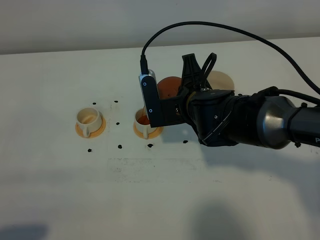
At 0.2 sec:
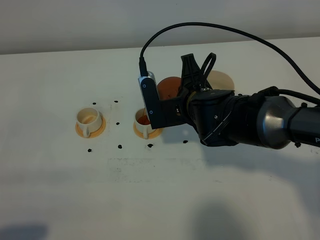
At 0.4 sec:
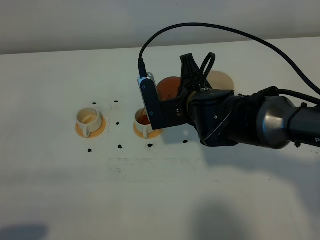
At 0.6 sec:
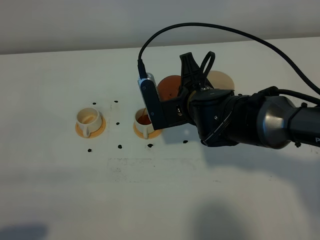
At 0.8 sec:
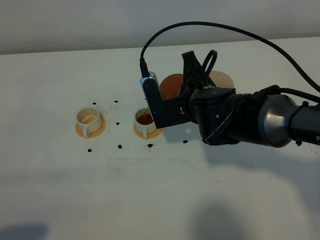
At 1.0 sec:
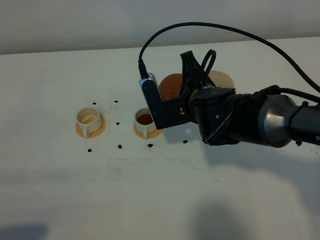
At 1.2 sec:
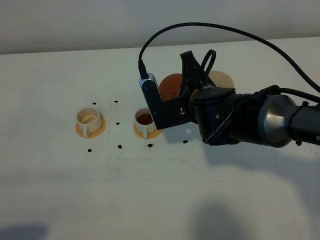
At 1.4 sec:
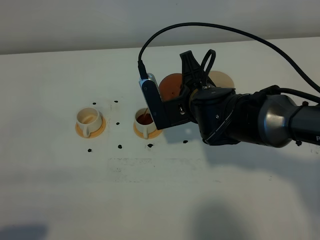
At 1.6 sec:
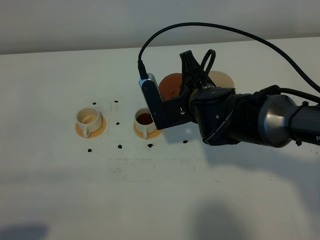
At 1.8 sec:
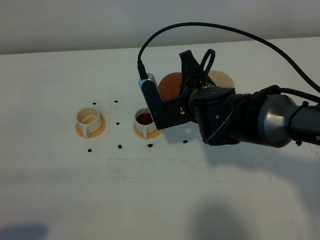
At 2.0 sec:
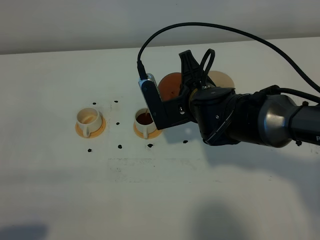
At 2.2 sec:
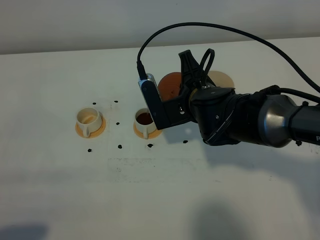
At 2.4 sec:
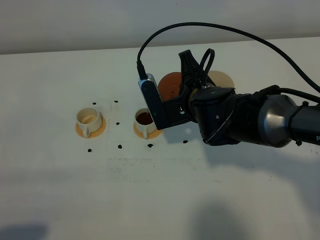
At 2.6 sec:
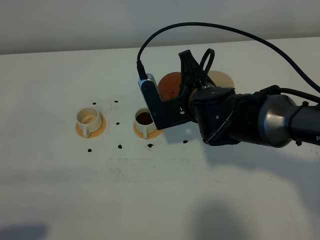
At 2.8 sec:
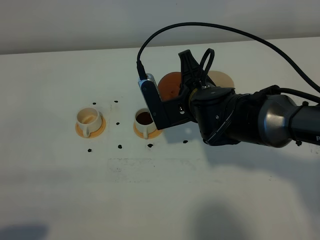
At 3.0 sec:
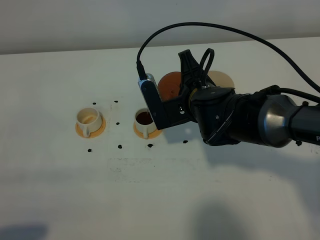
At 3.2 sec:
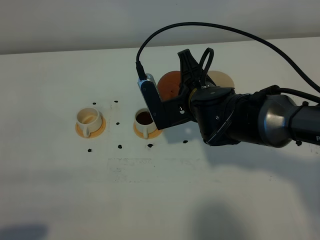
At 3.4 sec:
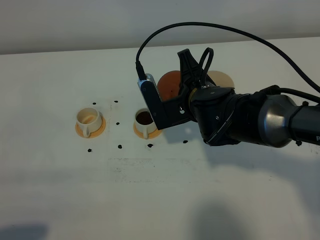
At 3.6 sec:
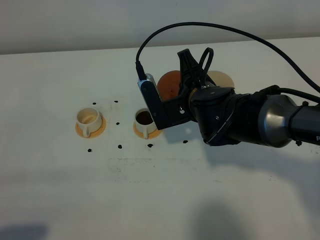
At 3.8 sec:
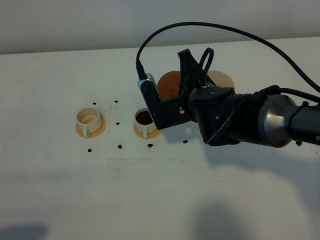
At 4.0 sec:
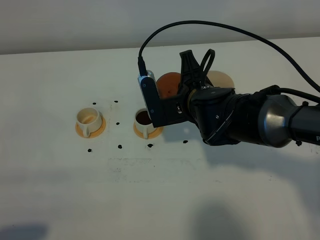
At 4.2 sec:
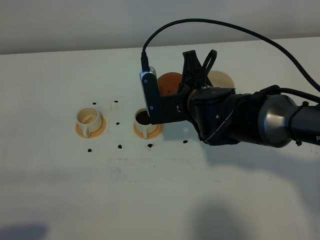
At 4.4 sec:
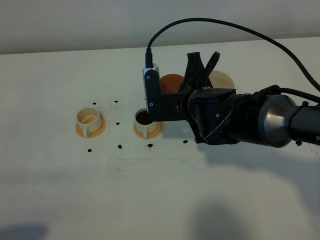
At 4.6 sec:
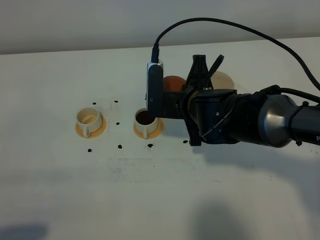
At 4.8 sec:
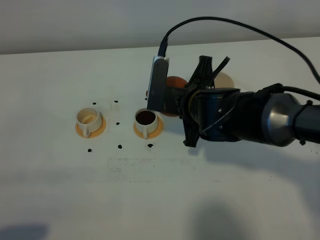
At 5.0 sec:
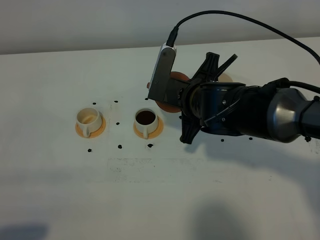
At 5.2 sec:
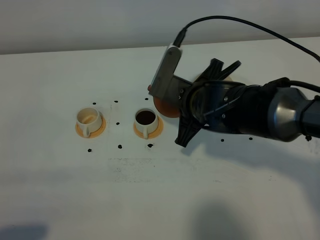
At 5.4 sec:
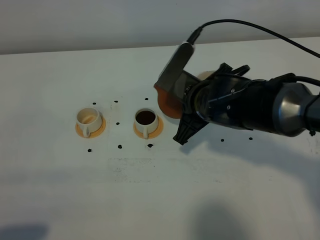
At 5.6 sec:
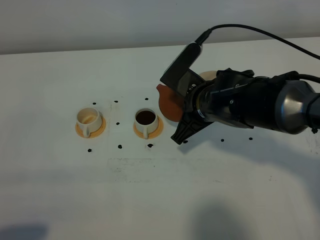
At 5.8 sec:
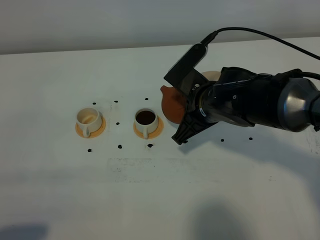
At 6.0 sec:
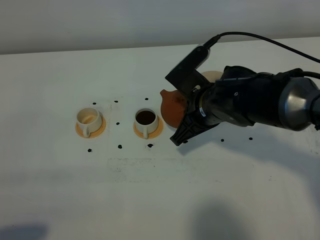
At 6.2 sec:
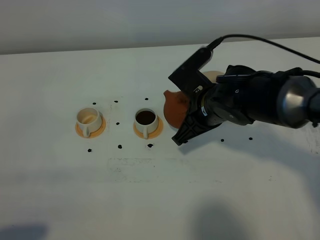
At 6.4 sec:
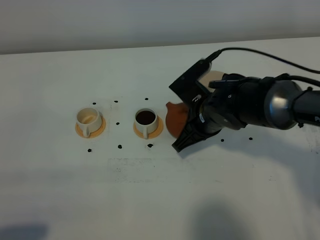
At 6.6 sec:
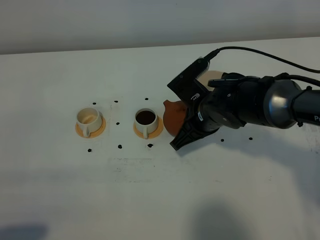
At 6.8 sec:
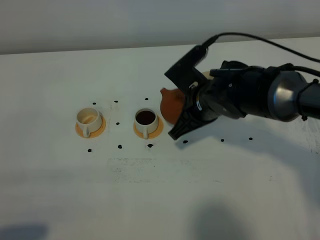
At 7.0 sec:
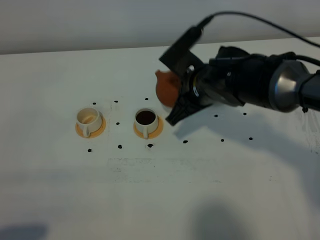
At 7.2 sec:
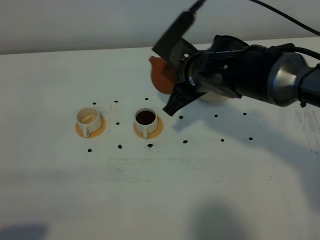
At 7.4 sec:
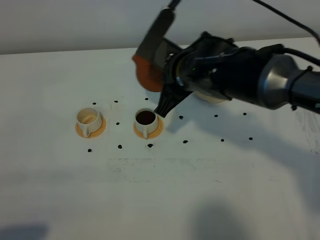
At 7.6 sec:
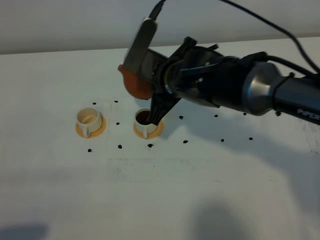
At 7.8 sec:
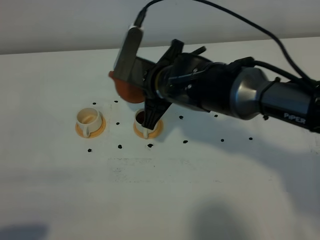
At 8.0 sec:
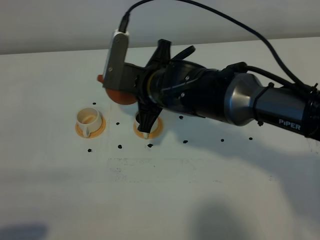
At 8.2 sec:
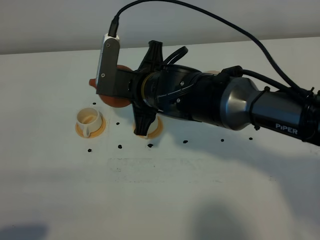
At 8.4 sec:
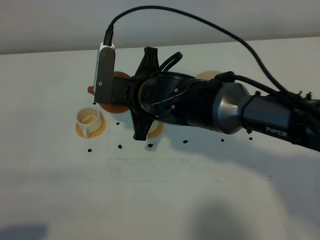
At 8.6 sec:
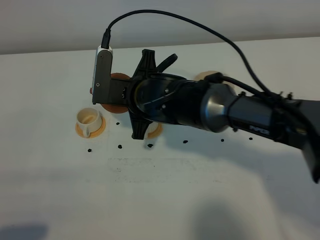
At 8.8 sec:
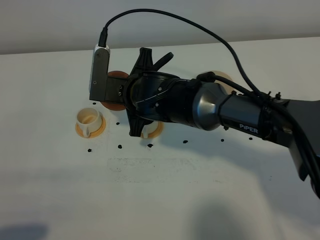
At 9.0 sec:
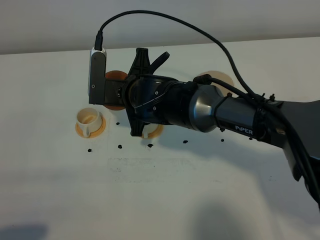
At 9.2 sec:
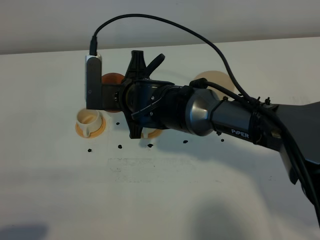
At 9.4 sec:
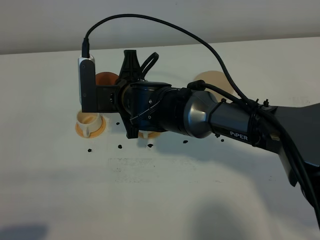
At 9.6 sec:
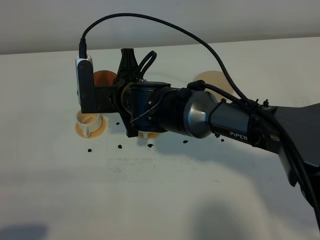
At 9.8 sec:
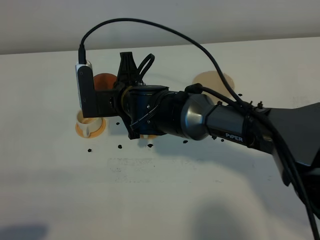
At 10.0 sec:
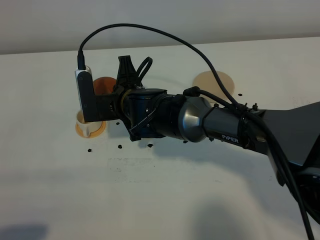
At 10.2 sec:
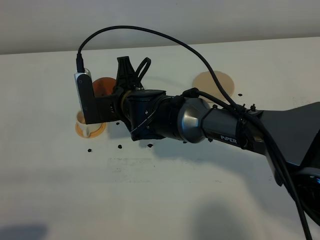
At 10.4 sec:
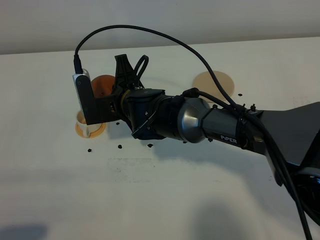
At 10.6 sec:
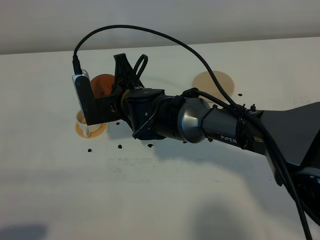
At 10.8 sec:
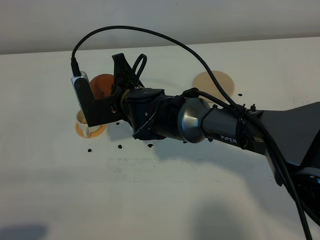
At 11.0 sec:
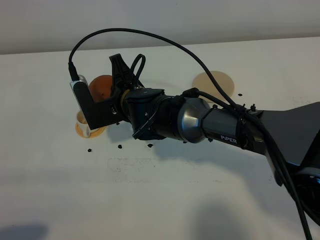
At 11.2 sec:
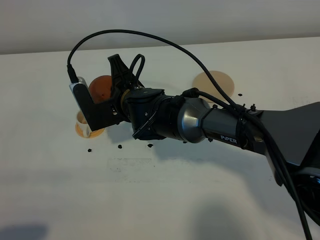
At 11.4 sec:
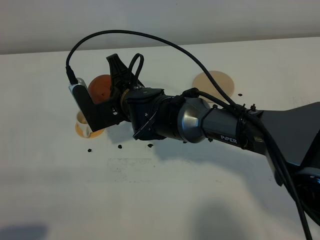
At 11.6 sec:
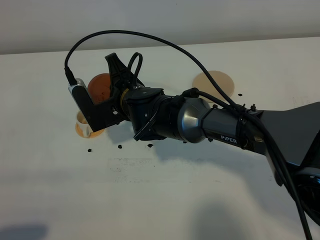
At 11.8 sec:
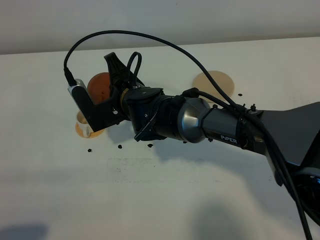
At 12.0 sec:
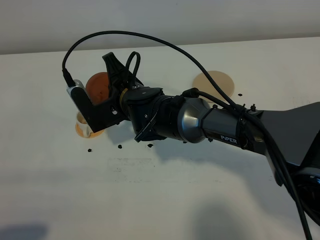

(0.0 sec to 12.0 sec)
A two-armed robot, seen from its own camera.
Task of the whole recording: grasp the brown teapot and pour the tea into the two white teacups one by one, put the brown teapot back in its original place.
0.0 sec - 1.6 sec: The grippers make only small movements.
1.6 sec - 3.0 sec: The two grippers keep their place.
3.0 sec - 4.4 sec: The grippers move only a little.
6.0 sec - 7.6 sec: The right gripper moves to the left, about 5 cm.
7.6 sec - 9.0 sec: The right gripper is displaced to the left by some 5 cm.
9.0 sec - 10.4 sec: The grippers move only a little.
10.4 sec - 12.0 sec: The grippers move only a little.

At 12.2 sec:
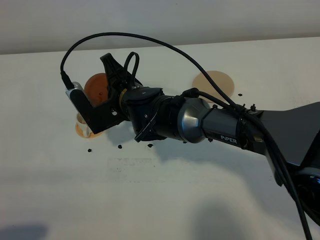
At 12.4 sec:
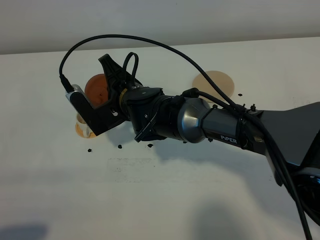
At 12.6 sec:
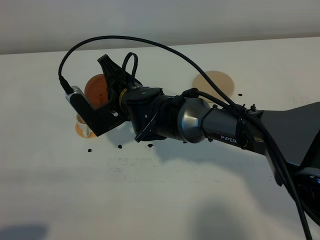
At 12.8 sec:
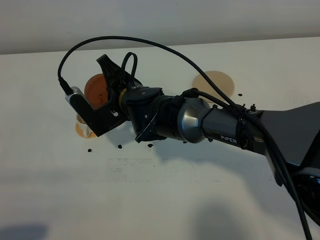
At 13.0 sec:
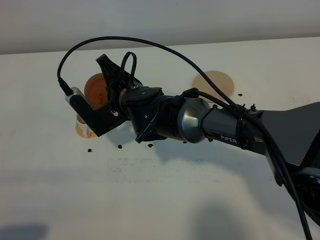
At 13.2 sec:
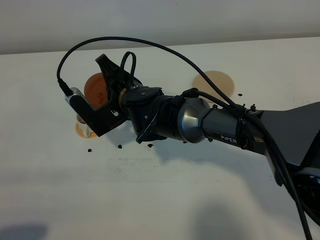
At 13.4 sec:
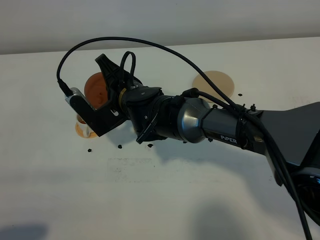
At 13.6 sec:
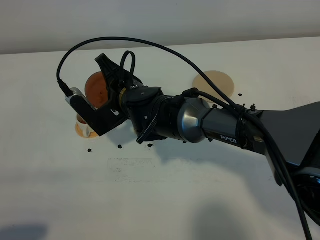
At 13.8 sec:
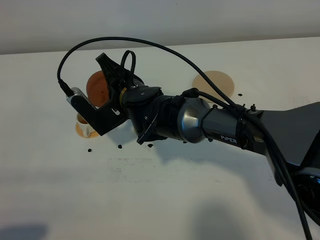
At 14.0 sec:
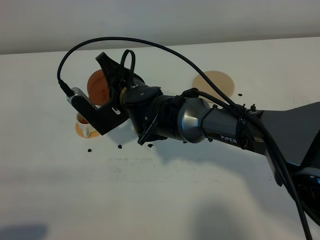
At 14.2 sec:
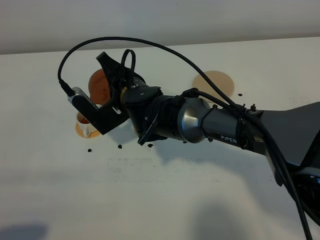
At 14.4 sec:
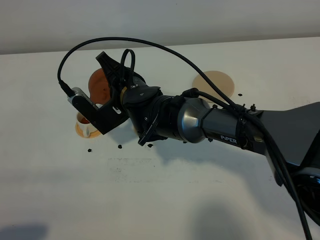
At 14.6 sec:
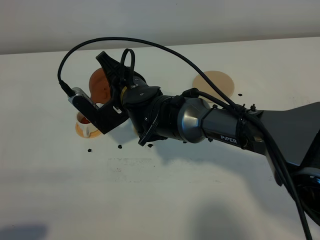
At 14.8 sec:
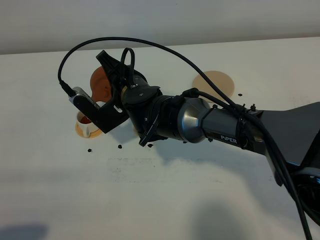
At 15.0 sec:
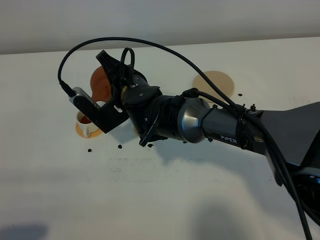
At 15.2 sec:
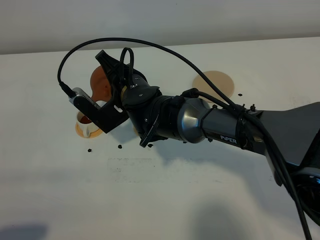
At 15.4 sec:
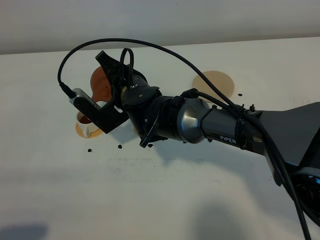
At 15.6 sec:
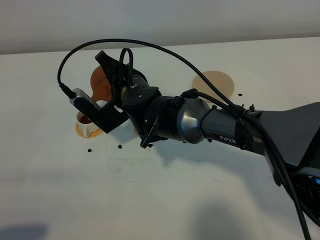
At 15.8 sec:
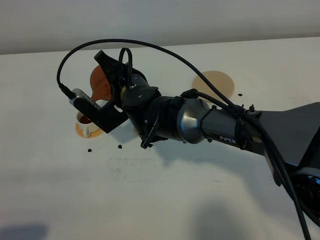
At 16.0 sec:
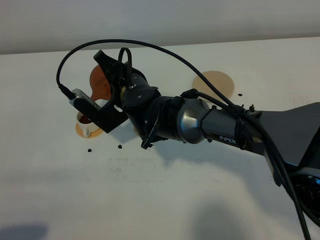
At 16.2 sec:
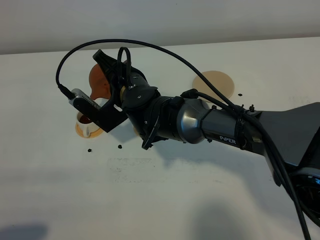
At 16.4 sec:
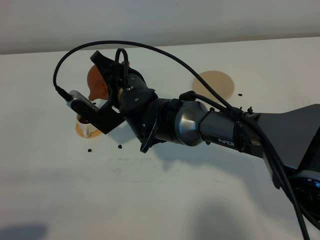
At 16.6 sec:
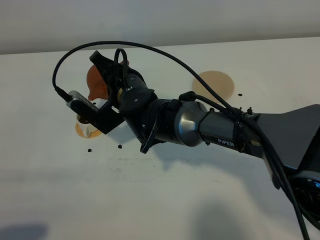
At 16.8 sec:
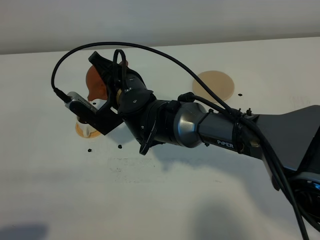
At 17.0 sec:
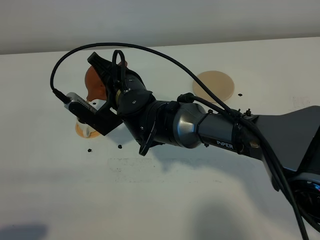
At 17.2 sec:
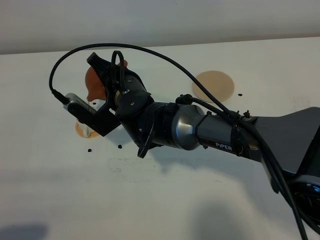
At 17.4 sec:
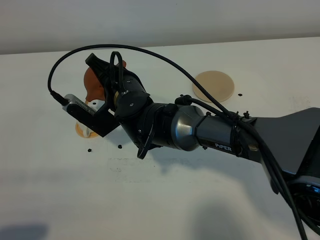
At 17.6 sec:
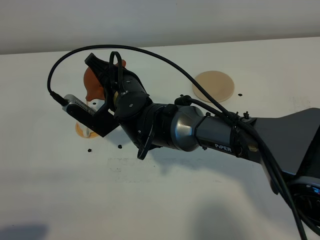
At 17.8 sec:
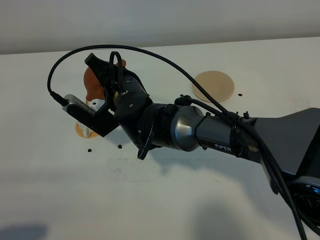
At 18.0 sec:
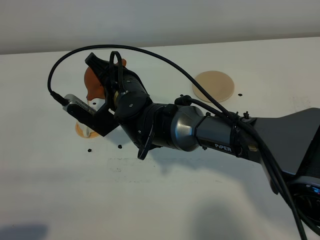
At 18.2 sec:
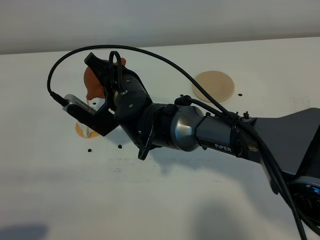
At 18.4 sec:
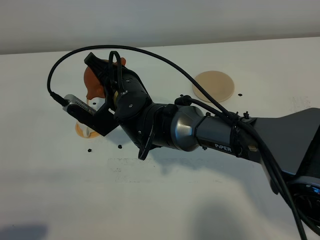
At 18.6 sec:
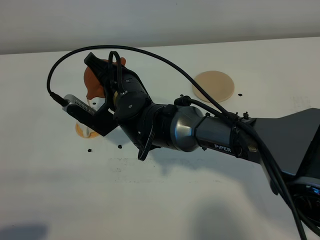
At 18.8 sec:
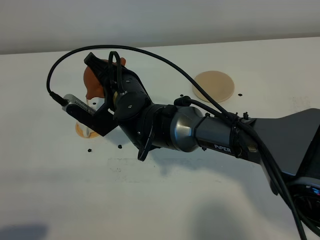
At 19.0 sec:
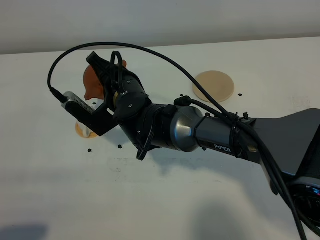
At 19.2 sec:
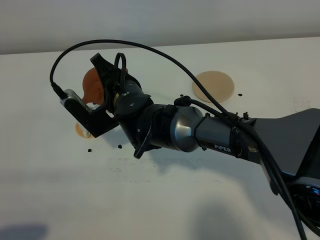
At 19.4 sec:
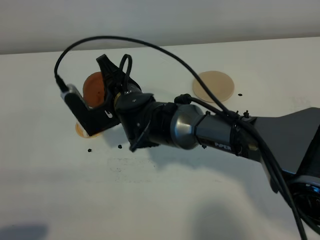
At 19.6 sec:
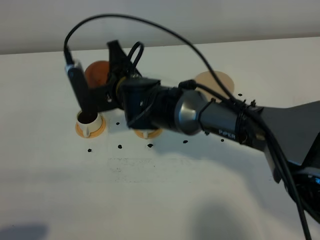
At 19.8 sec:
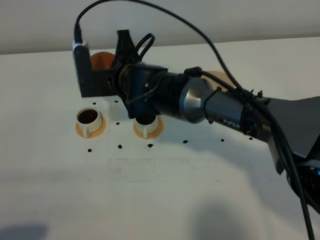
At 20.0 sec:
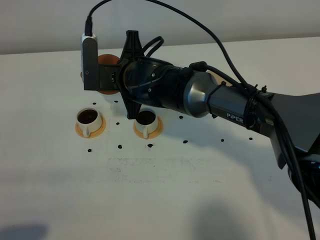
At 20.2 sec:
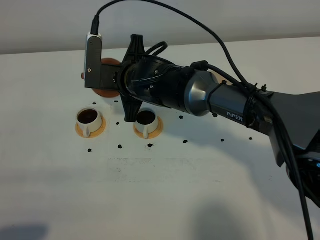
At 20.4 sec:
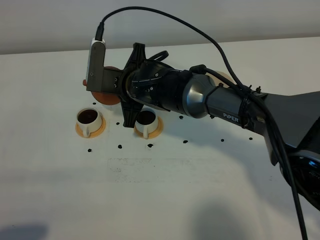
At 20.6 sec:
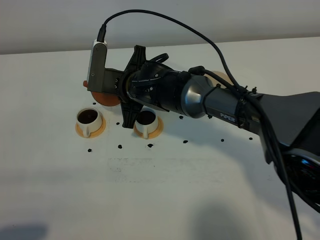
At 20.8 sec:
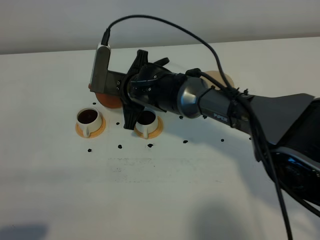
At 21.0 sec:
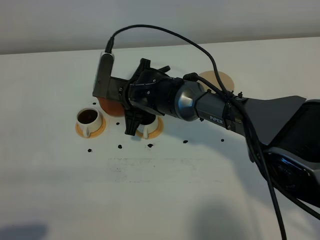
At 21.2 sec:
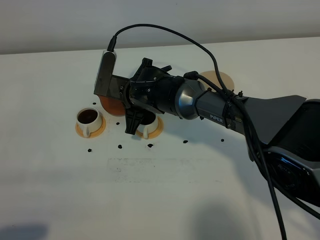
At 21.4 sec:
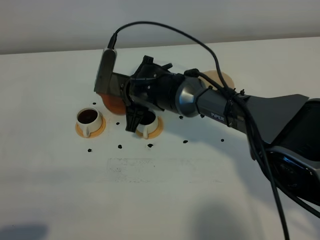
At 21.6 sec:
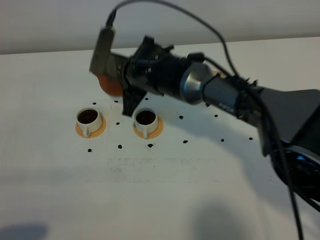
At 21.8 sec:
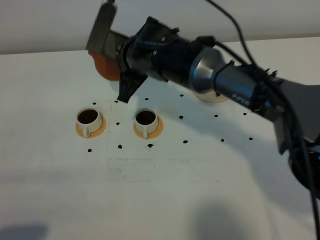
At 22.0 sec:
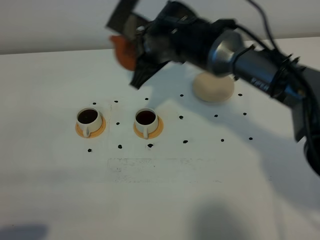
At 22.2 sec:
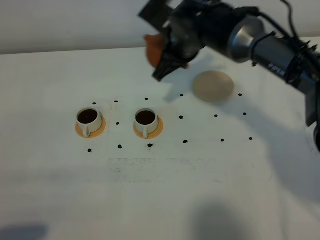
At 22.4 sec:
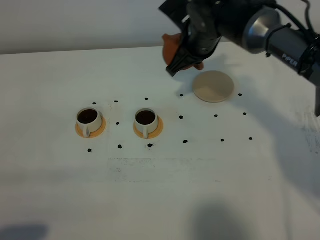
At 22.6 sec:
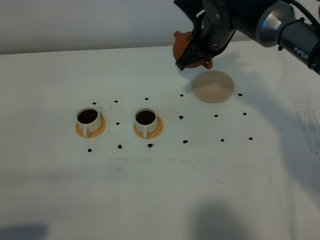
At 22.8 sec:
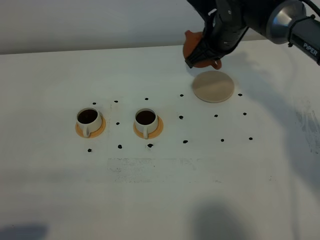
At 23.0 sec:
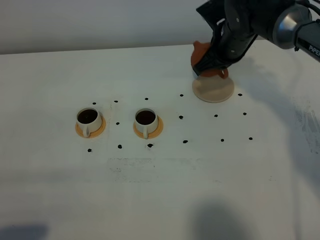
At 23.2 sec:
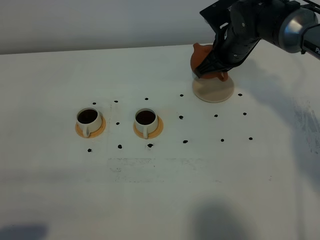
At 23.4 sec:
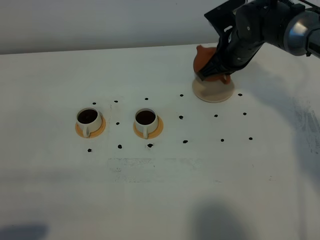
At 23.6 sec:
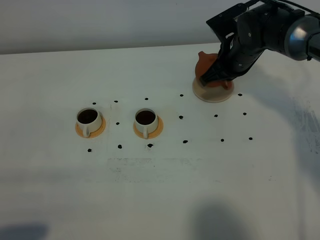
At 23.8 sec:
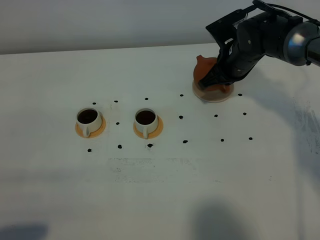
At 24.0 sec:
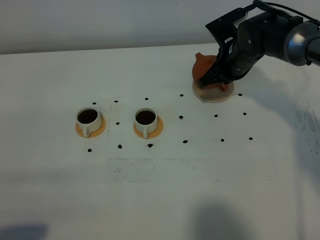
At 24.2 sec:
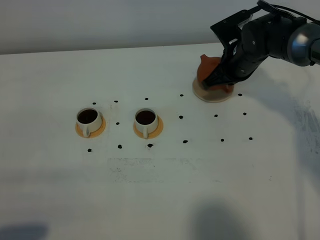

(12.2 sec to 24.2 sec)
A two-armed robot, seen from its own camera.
Task of the whole recording: grasp the brown teapot and pour the tea into the two white teacups one by one, put the brown teapot back in its original place.
Step, 12.2 sec - 20.0 sec: Pour tea into the teacup with the right gripper.
12.2 sec - 15.2 sec: The grippers stay close to where they were, moving slightly.
15.2 sec - 16.6 sec: The two grippers keep their place.
16.6 sec - 18.2 sec: Both grippers stay put.
19.8 sec - 21.2 sec: The right gripper moves downward, roughly 5 cm.
21.2 sec - 22.6 sec: The right gripper moves to the right and upward, about 20 cm.
22.6 sec - 24.2 sec: The right gripper goes some 10 cm downward and to the right.
